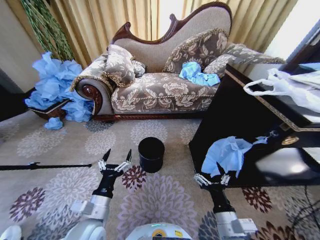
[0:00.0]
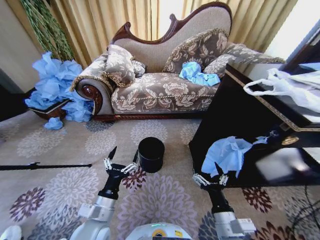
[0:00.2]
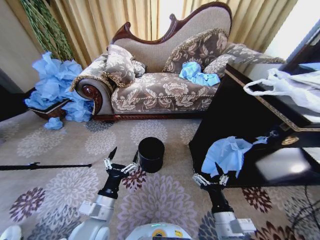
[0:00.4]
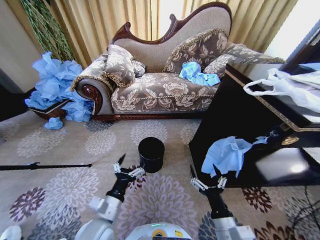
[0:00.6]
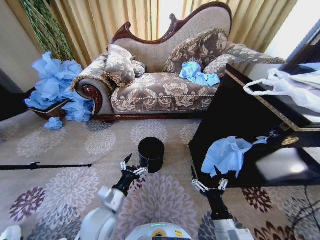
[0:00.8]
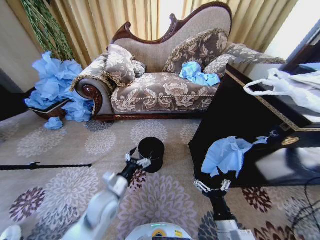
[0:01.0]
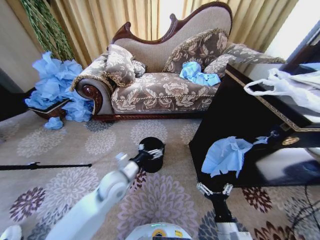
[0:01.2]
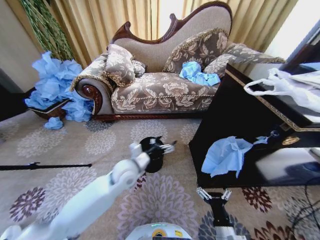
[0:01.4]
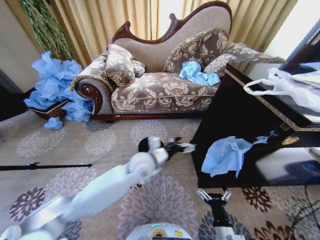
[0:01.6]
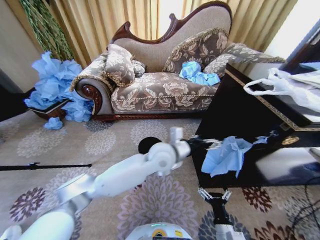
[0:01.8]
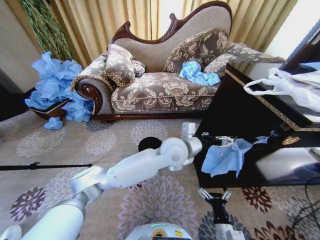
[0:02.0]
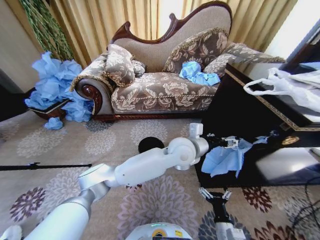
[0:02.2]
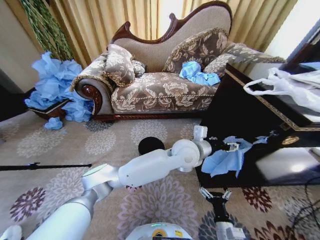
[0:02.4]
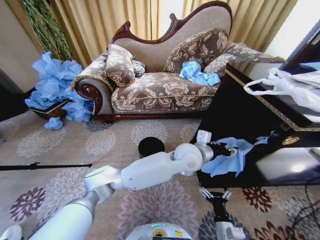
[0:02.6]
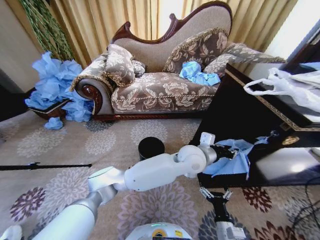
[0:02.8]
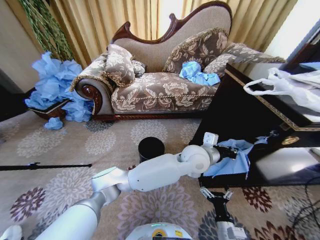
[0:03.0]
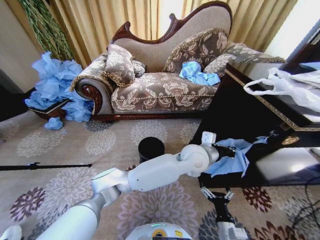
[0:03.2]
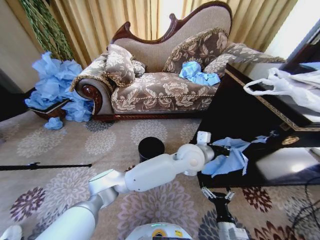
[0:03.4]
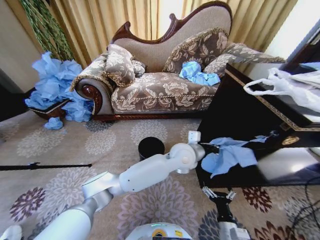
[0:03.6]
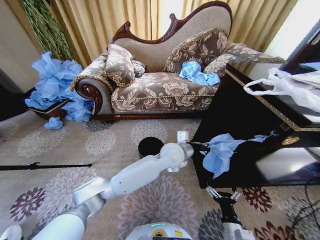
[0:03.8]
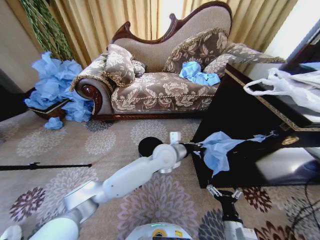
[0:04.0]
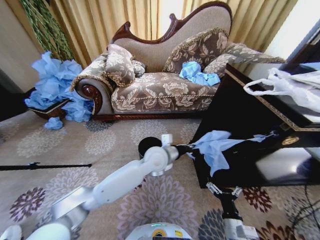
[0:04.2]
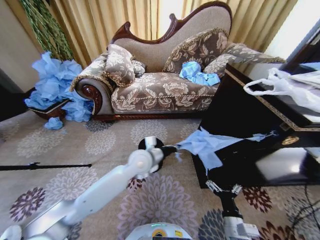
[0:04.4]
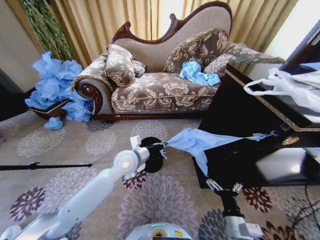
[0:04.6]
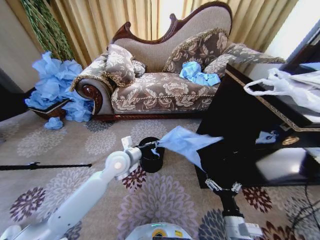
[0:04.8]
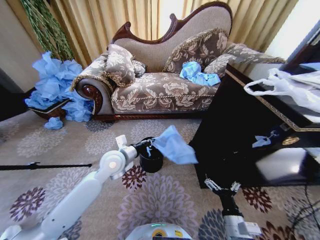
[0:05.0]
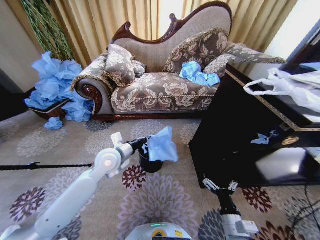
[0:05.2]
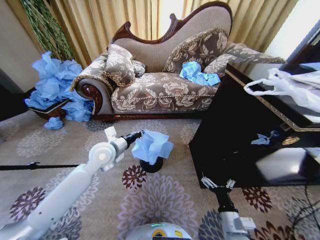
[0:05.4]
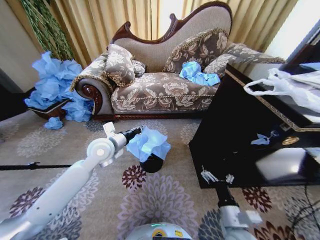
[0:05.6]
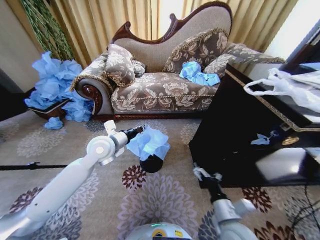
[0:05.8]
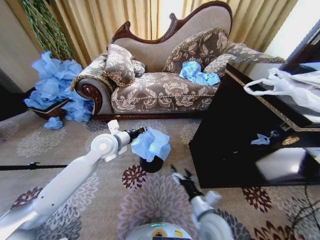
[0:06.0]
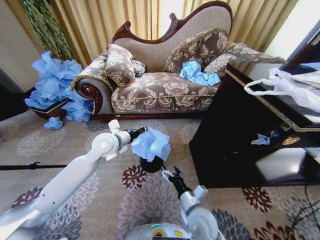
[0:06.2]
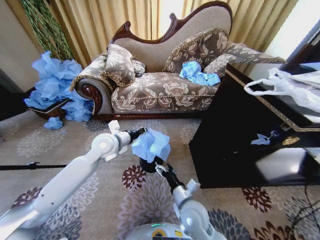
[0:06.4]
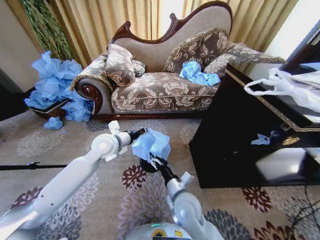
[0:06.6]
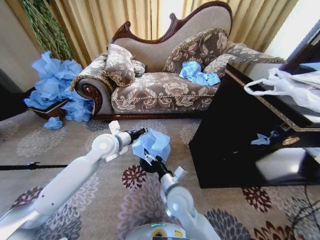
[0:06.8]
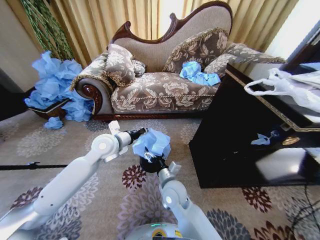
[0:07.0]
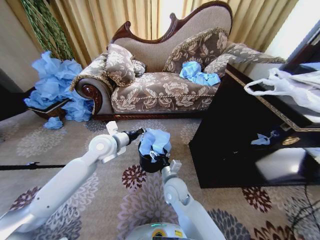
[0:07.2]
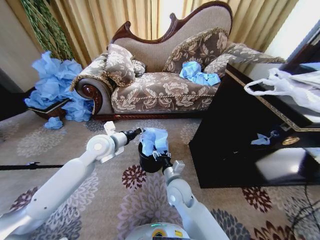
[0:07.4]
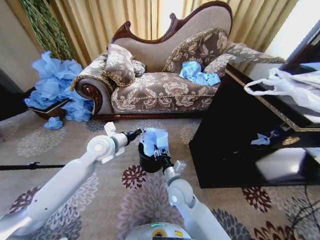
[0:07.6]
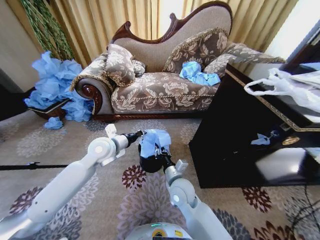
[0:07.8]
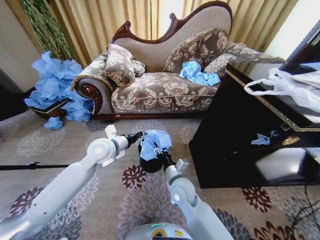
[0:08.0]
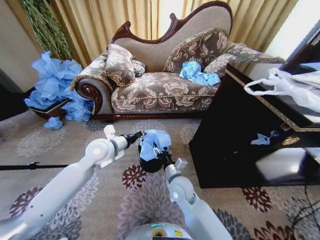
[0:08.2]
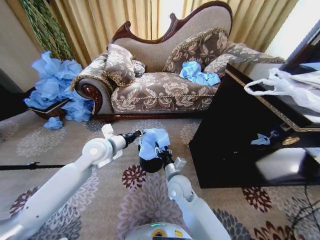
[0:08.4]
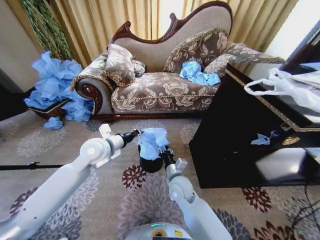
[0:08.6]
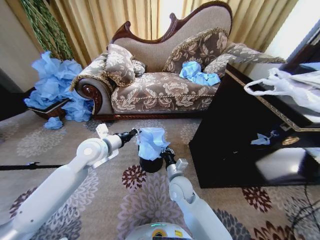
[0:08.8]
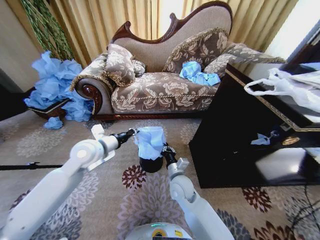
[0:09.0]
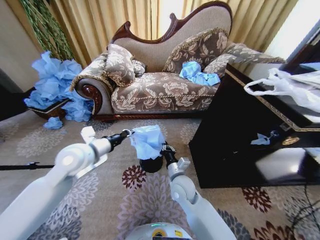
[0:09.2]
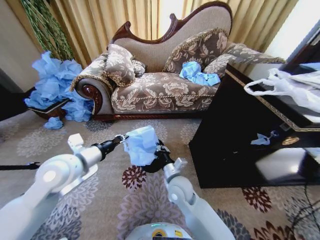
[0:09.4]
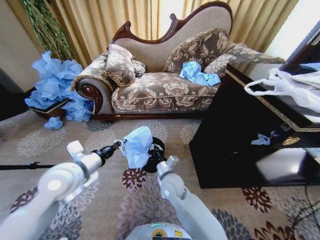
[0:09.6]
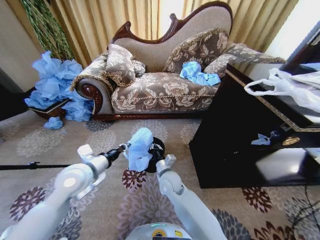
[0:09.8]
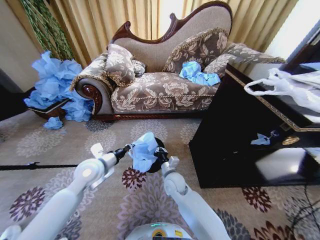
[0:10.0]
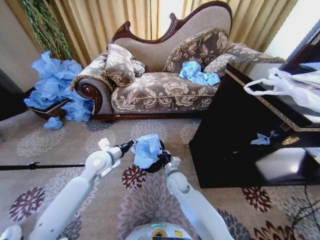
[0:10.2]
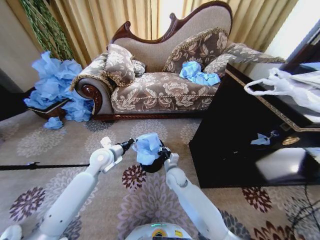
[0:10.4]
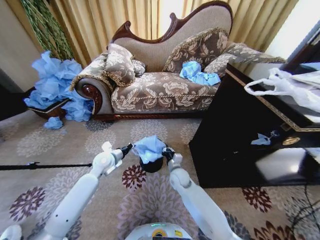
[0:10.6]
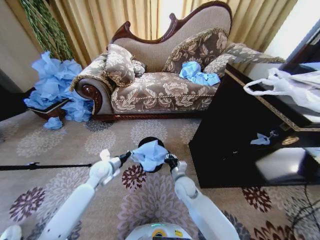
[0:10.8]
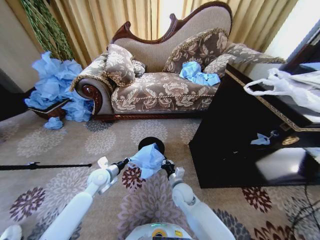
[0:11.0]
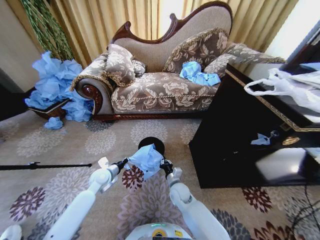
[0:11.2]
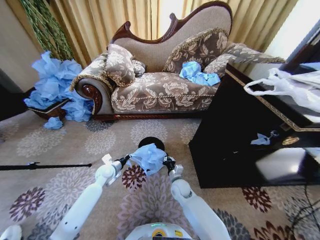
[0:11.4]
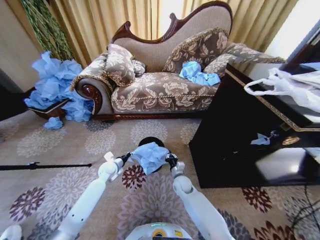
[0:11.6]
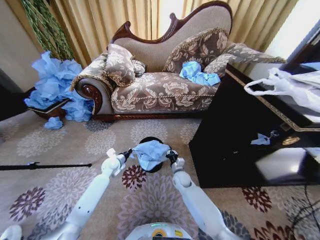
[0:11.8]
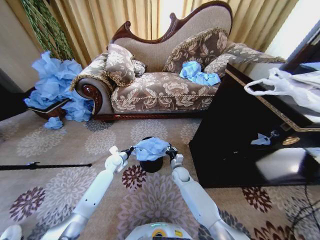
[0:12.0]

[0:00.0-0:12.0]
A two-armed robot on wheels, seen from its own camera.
Task of the whole recording: Place a garbage bag over the trash bin.
0:01.6 to 0:03.0: The left gripper shifts roughly 20 cm to the right, and closes.
0:03.0 to 0:04.4: The left gripper goes about 20 cm to the left.
0:04.4 to 0:06.0: The left gripper shifts some 15 cm to the left and upward. Meanwhile the right gripper travels to the left and forward by about 10 cm.
0:06.0 to 0:07.6: The right gripper goes about 15 cm to the left and forward, and closes its fingers.
0:07.6 to 0:09.0: The right gripper closes up.
0:09.0 to 0:10.4: The right gripper travels forward and downward by about 10 cm, while the left gripper is displaced downward by about 10 cm, and moves approximately 10 cm backward and comes back.
0:10.4 to 0:12.0: The right gripper is displaced downward and forward by about 10 cm; the left gripper moves downward and forward, approximately 15 cm.

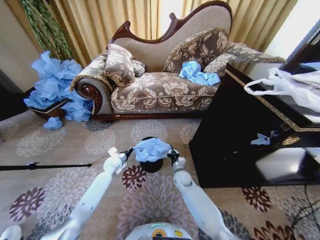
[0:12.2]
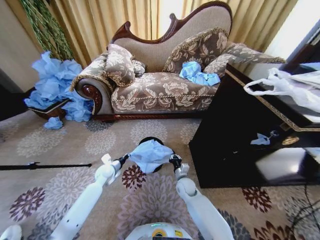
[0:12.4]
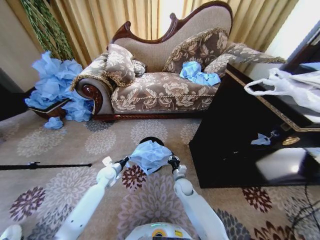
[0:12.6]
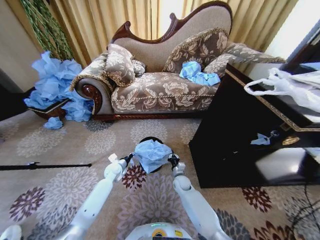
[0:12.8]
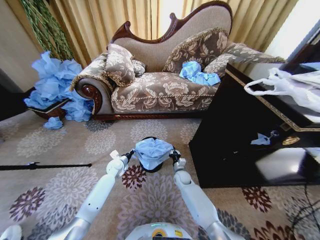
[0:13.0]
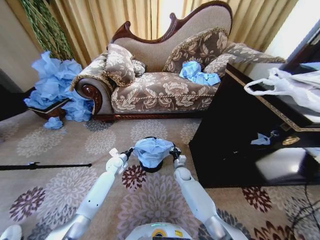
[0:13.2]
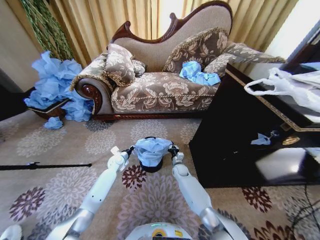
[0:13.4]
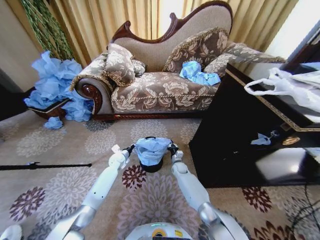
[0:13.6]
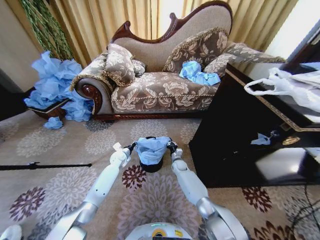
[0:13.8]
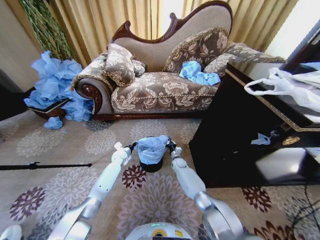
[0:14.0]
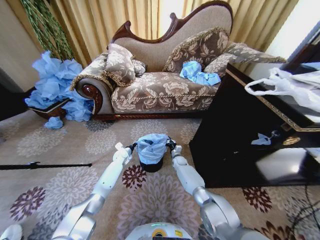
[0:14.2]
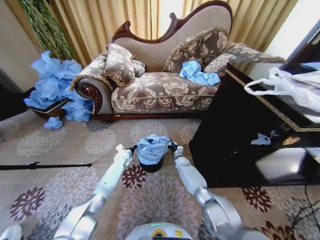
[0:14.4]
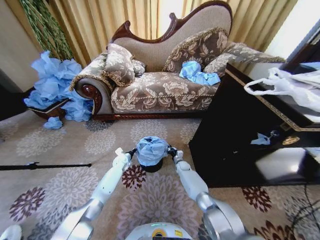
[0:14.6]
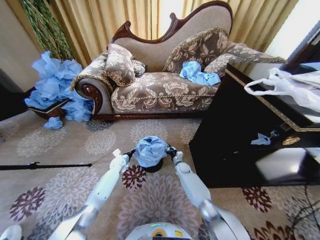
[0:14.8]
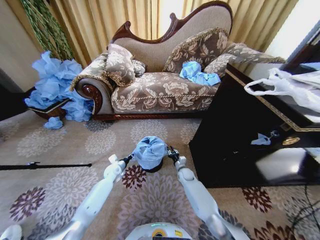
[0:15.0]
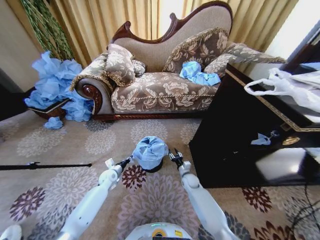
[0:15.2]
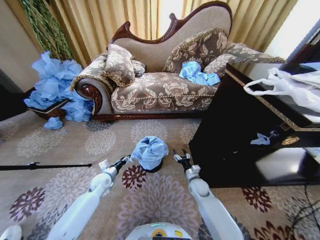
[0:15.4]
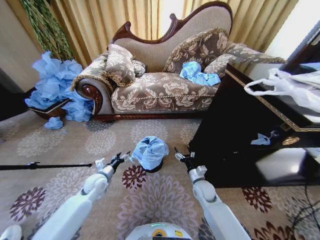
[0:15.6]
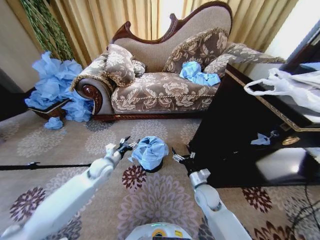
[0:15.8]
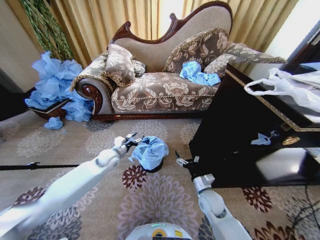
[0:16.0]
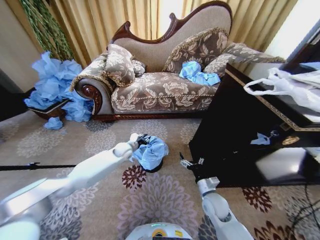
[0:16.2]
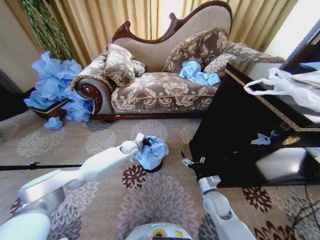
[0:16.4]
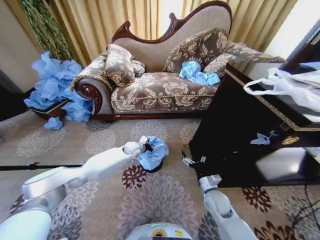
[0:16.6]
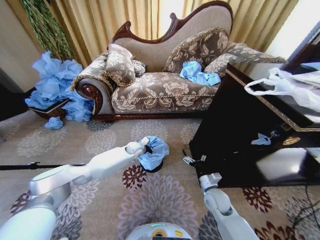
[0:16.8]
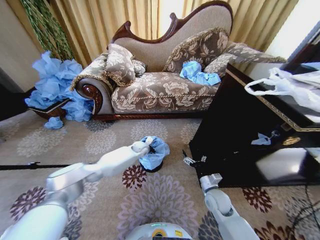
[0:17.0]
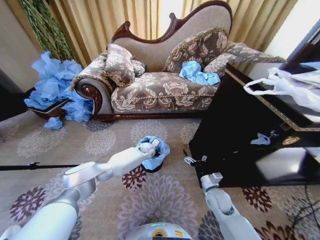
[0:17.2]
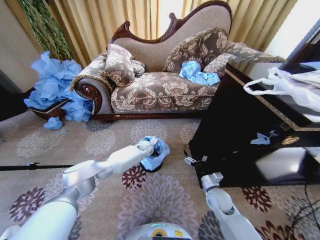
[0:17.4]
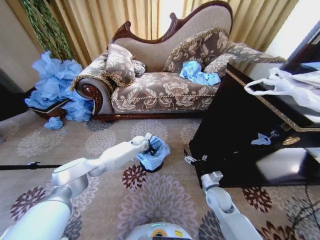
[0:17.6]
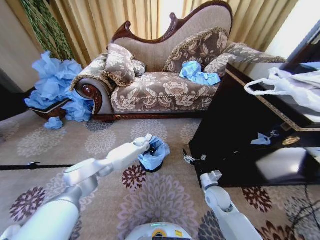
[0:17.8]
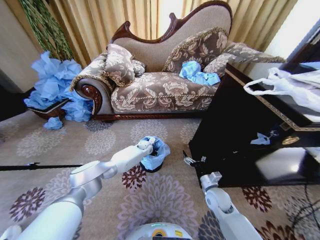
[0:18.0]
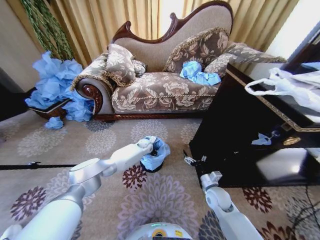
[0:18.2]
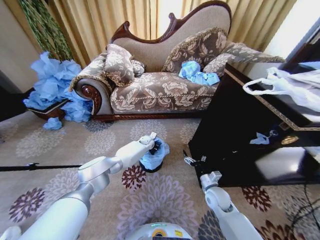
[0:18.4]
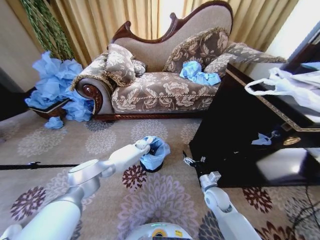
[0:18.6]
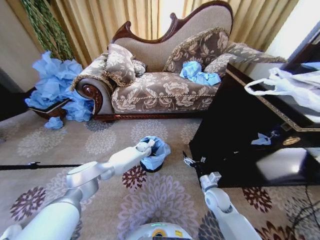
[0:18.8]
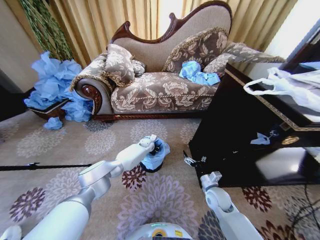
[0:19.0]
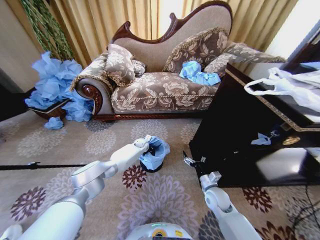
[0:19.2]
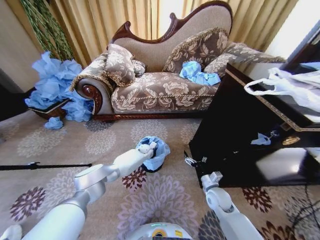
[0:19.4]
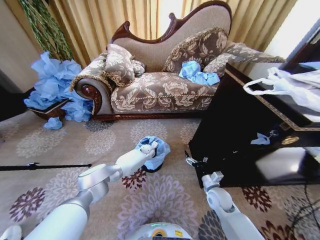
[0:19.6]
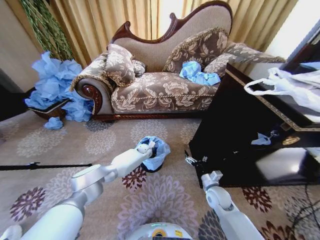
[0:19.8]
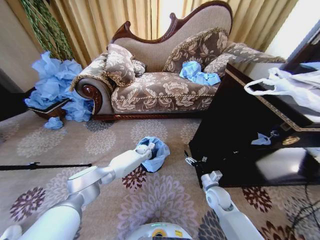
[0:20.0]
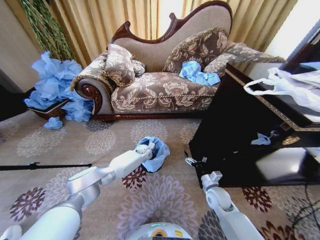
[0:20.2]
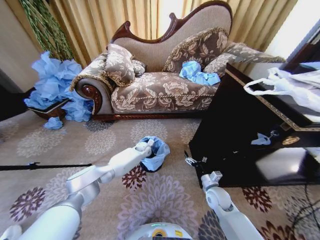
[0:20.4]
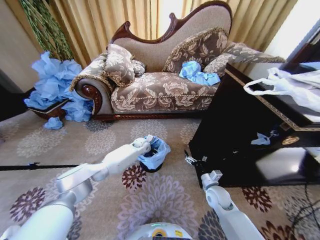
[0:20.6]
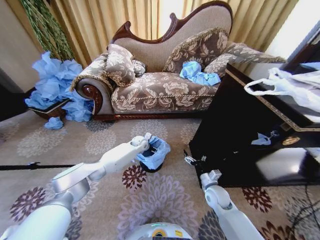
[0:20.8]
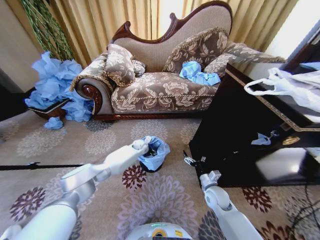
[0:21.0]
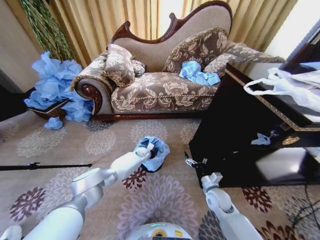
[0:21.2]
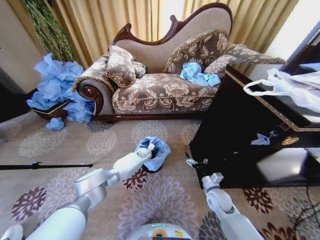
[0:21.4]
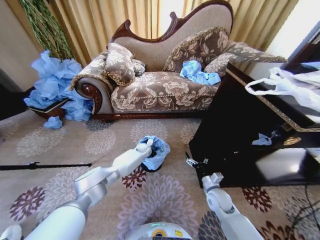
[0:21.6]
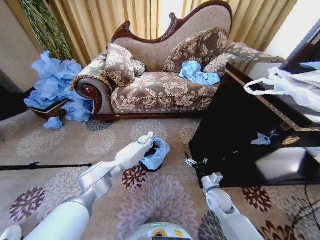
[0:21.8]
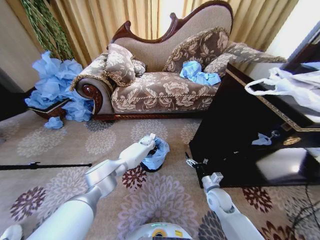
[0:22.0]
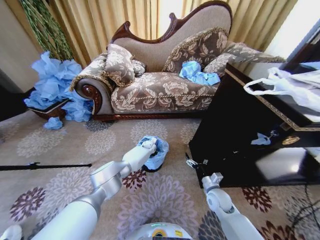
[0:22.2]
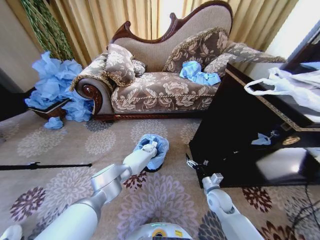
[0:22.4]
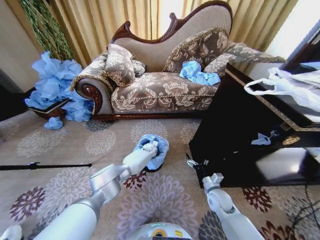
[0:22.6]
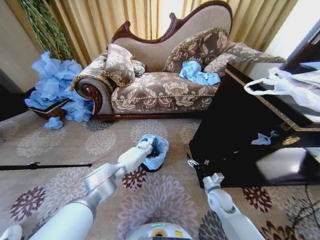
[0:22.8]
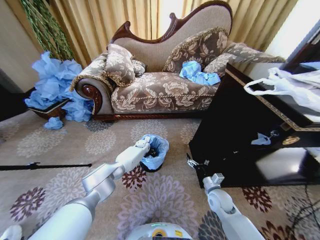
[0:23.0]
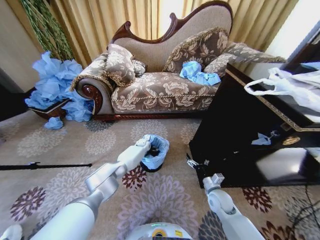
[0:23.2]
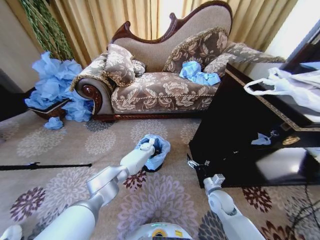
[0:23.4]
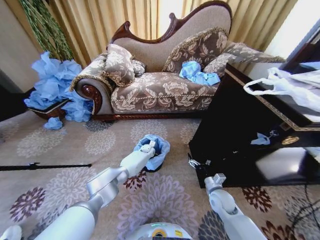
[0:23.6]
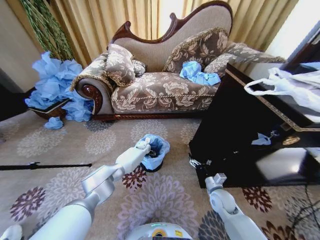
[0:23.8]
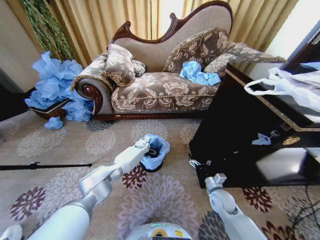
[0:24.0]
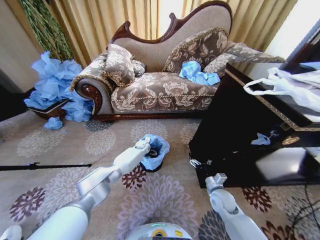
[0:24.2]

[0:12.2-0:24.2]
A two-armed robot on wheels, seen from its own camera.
Task of the whole recording: Place a garbage bag over the trash bin.
0:12.2 to 0:13.8: The right gripper goes some 10 cm forward. Meanwhile the left gripper travels forward by about 5 cm.
0:13.8 to 0:15.2: The right gripper goes some 10 cm backward and to the right, and opens its fingers. The left gripper goes approximately 10 cm backward.
0:15.2 to 0:16.6: The right gripper goes approximately 20 cm backward, upward and to the right, and opens; the left gripper moves to the right, forward and upward, roughly 20 cm, and opens and closes again.
0:16.6 to 0:18.2: The left gripper heads forward and to the right, covering some 10 cm.
0:18.2 to 0:19.8: There are only small adjustments of the grippers.
0:19.8 to 0:21.2: The left gripper reaches approximately 10 cm upward, then returns, and opens its fingers.
0:21.2 to 0:22.6: The left gripper moves some 5 cm upward and comes back, and closes.
0:22.6 to 0:24.2: The left gripper ends up about 5 cm from where it was, and opens up.
